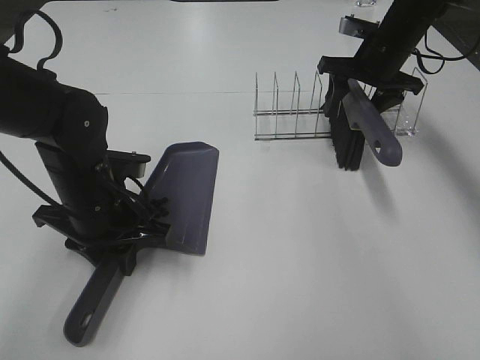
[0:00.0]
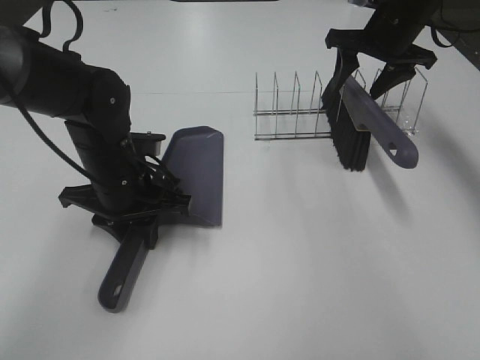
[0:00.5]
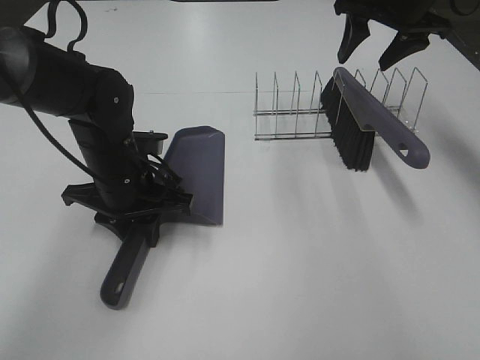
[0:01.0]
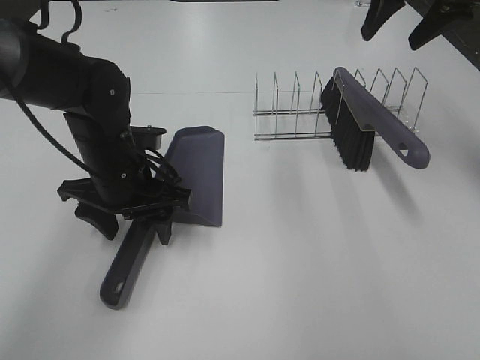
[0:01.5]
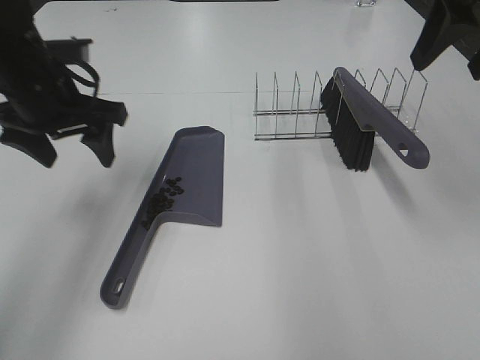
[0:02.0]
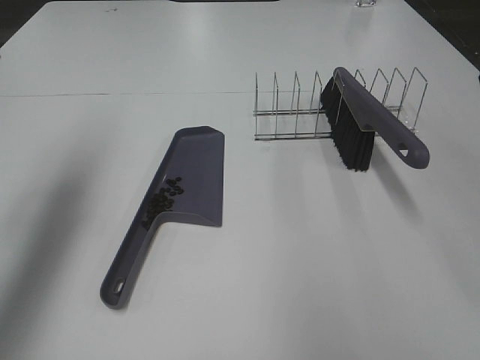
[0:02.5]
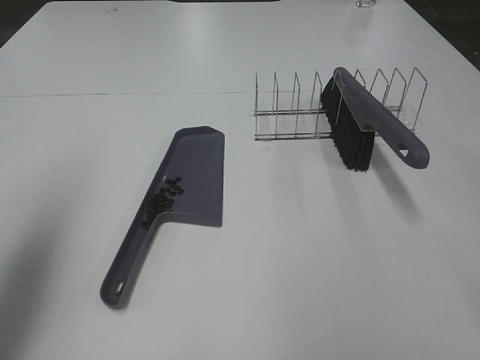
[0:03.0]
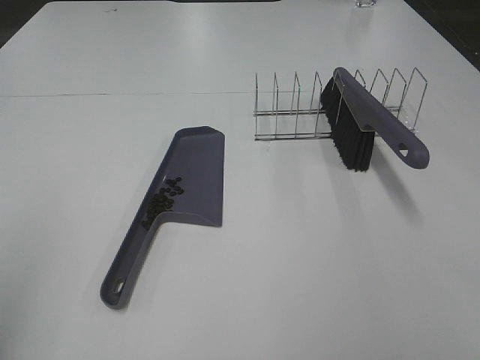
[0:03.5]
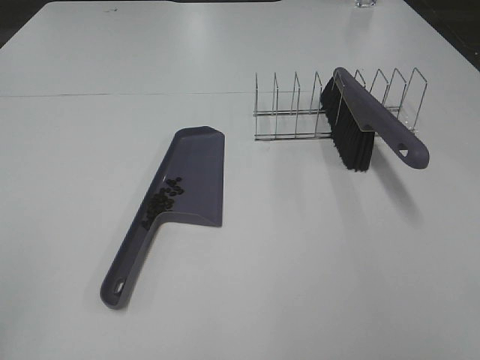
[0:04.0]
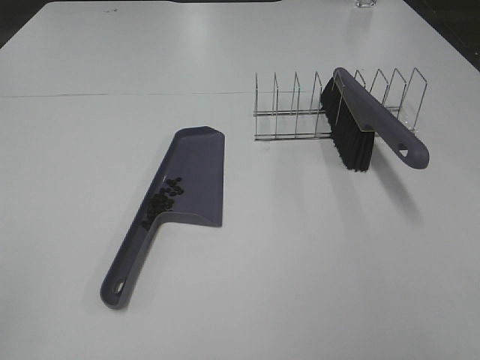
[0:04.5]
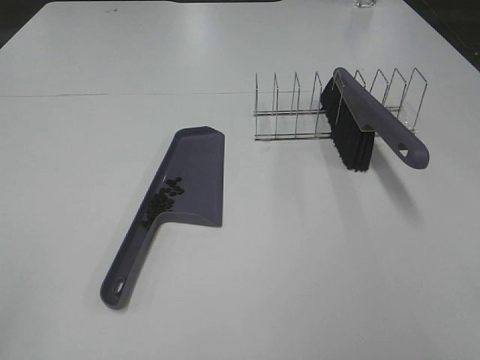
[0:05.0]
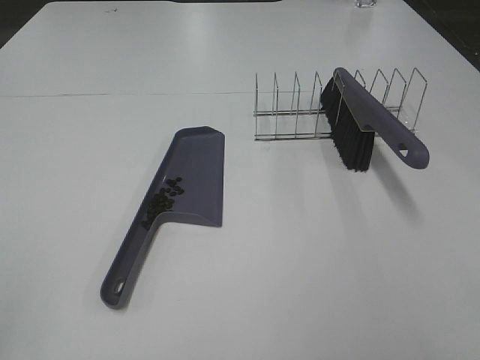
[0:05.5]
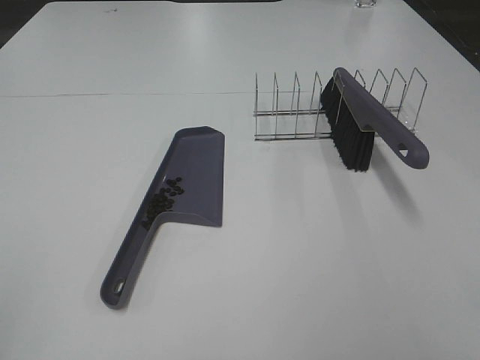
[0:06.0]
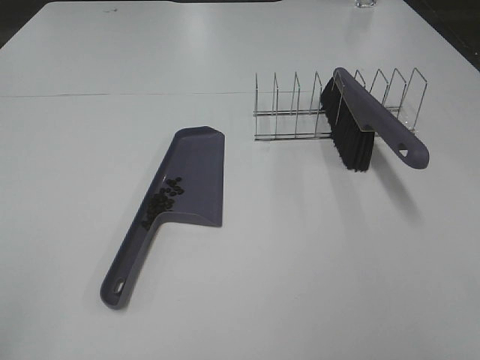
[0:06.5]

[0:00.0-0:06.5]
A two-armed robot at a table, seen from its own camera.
Task of the whole recording: Sweep Coffee Bean.
0:00.0 to 0:02.0: The left gripper heads upward, forward and to the left, covering roughly 15 cm, and opens its fingers; the right gripper moves backward and upward, roughly 25 cm.
0:02.0 to 0:04.5: The grippers both shift backward by approximately 35 cm.
